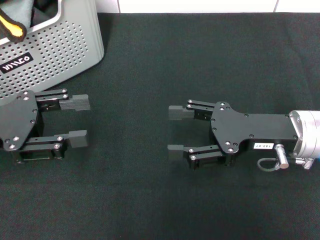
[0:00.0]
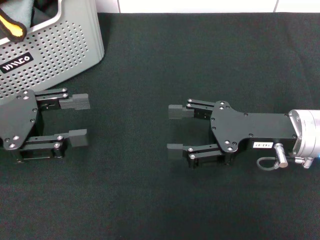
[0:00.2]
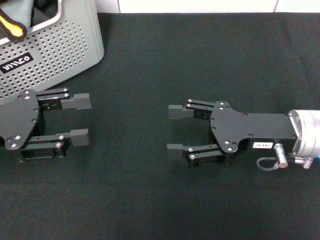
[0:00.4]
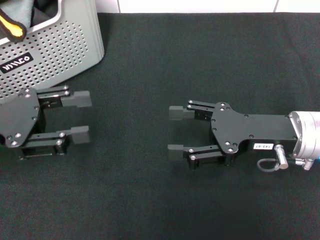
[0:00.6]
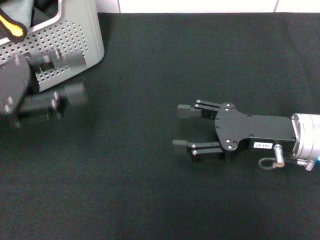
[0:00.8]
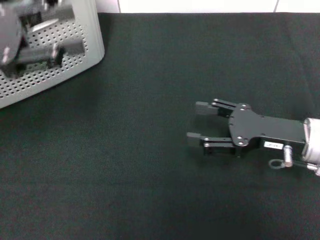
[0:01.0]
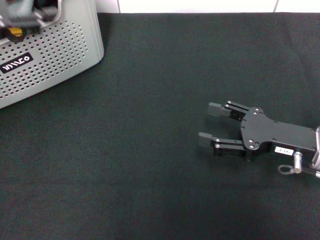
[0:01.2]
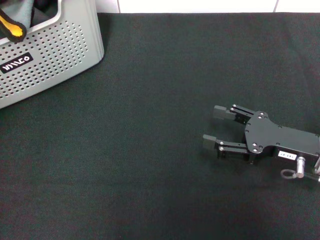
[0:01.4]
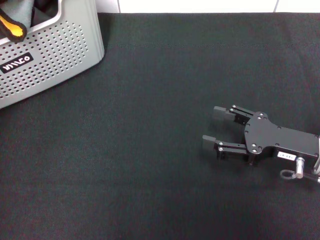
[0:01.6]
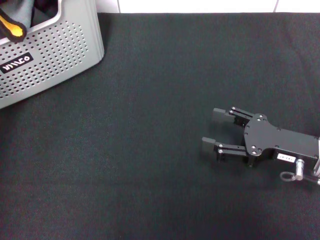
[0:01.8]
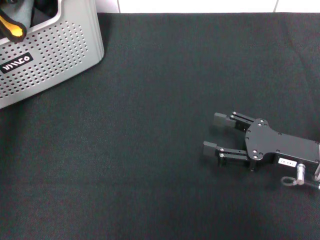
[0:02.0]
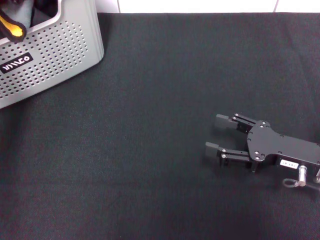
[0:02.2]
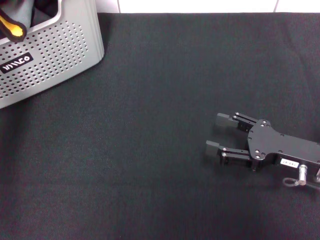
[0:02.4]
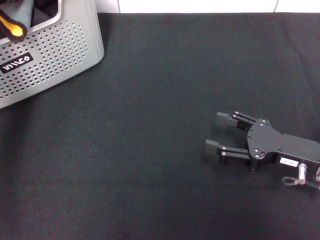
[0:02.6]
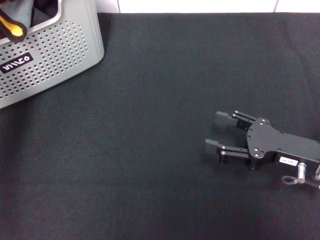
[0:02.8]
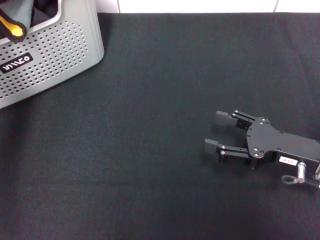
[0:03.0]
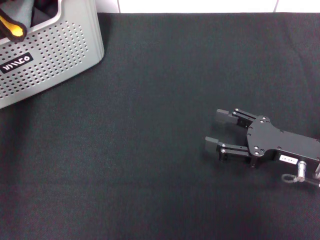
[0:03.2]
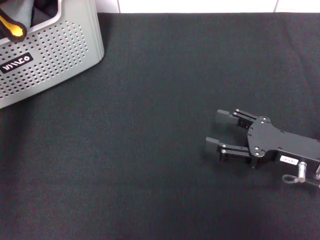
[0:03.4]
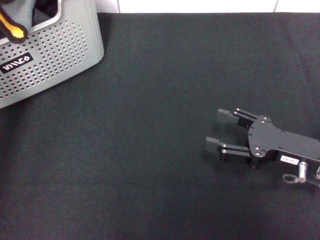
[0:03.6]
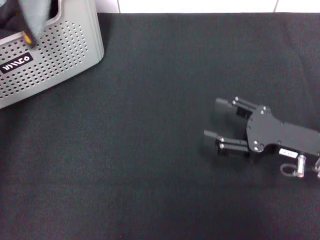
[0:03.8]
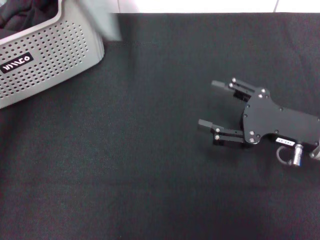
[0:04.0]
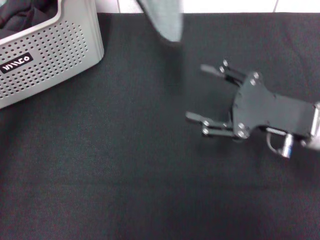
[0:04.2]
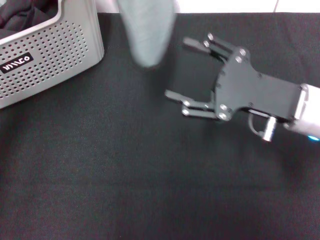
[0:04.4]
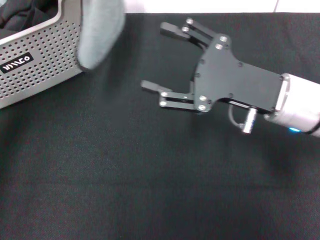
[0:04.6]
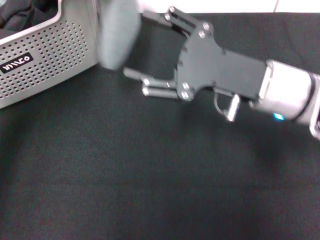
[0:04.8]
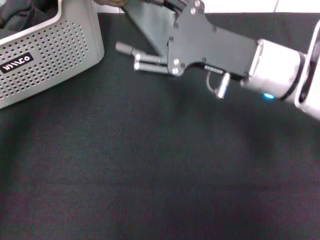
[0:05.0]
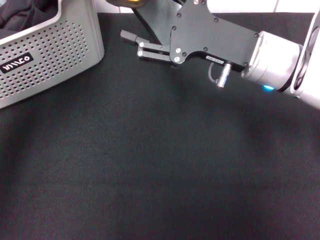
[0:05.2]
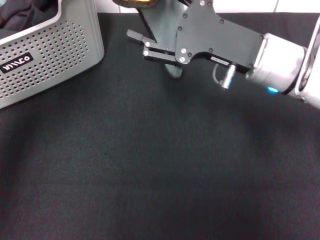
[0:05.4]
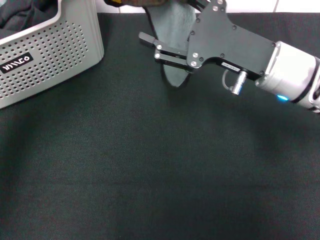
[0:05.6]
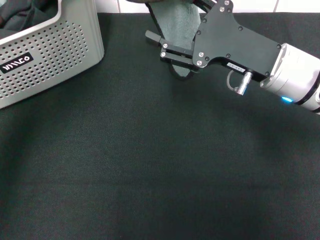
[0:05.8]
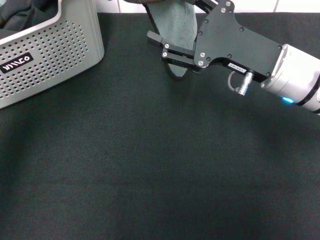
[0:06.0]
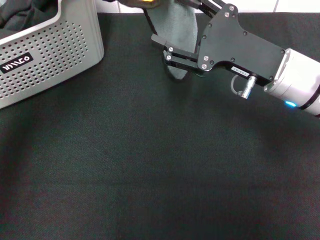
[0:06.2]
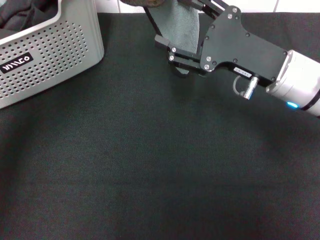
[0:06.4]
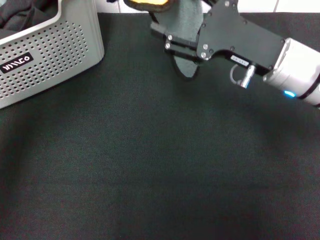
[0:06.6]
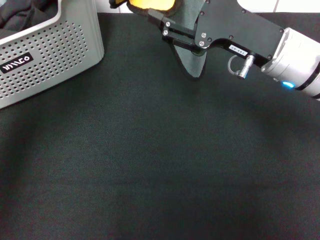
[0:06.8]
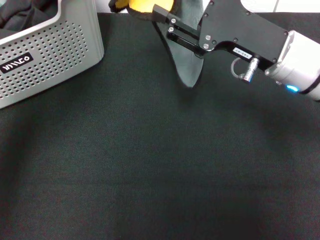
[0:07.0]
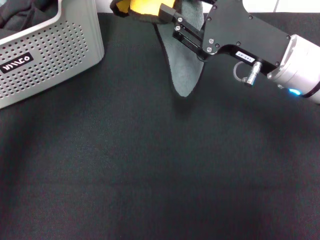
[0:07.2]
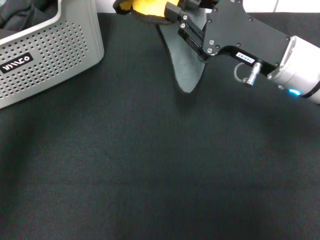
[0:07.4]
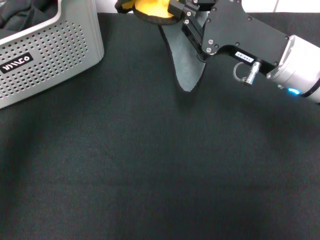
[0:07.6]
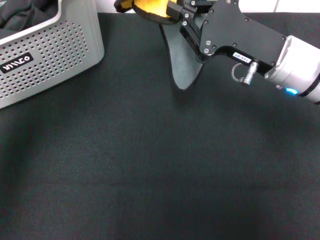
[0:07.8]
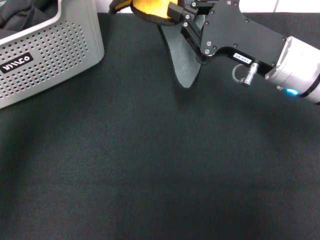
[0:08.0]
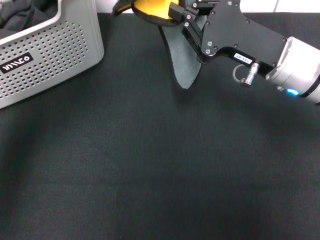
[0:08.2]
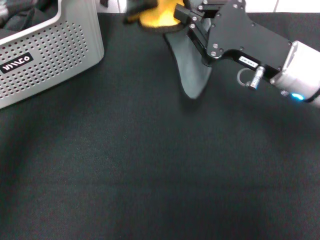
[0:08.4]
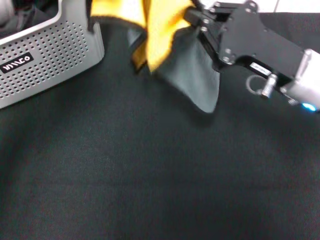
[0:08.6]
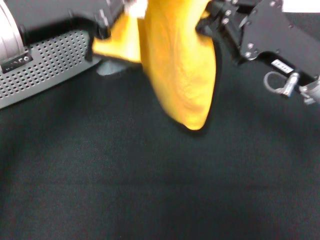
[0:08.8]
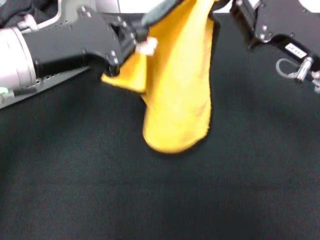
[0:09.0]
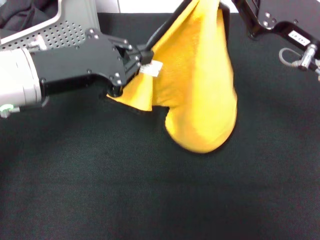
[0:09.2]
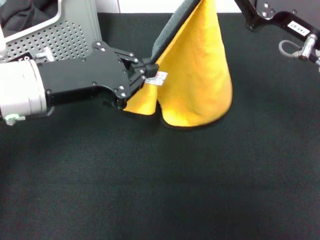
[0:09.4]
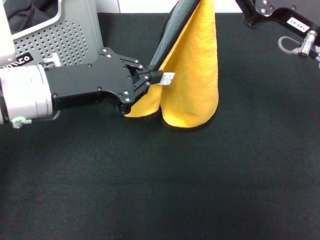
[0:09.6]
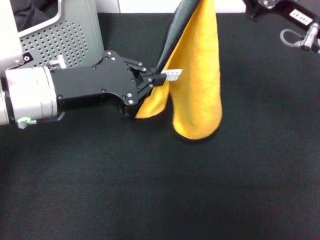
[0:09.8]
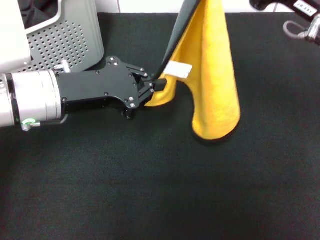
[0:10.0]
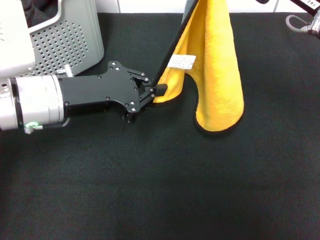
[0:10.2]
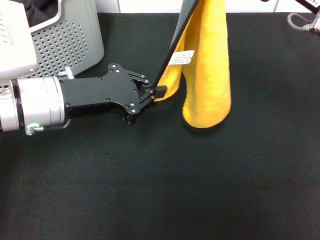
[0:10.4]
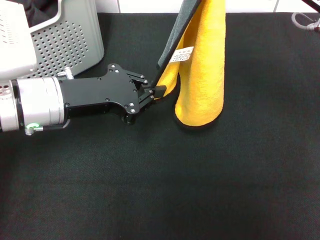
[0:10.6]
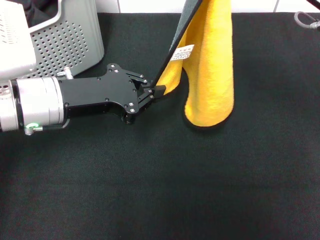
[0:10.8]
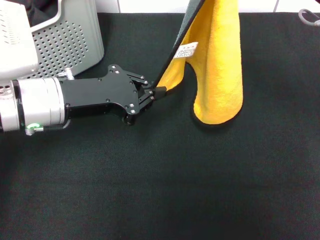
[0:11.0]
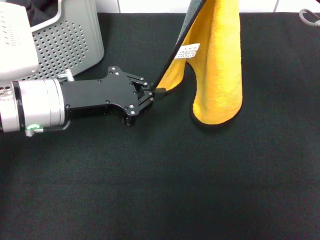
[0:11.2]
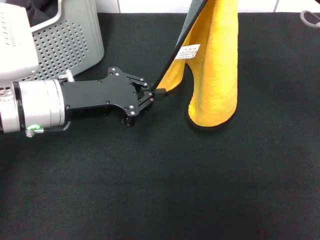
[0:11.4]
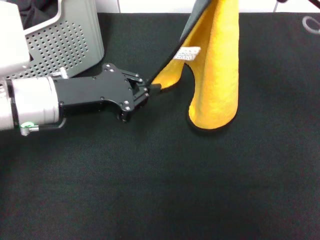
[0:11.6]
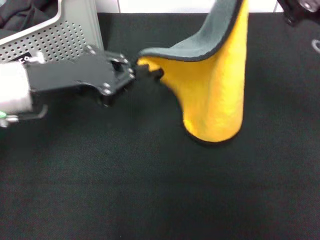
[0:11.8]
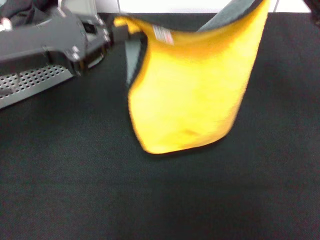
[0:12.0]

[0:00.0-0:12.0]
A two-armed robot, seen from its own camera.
Task of the whole recording: pick up the towel from the storage box and lay it flat on the black tablecloth.
Step, 0:00.0 to 0:03.2: Pick up a towel with the left gripper.
Step, 0:03.4 to 0:07.6: Spread the towel flat with the left gripper.
0:00.0 to 0:01.6: The right gripper shifts by roughly 5 cm. The left gripper heads upward and forward, covering some 15 cm.
0:01.6 to 0:03.0: The left gripper shifts about 10 cm forward and downward.
0:03.0 to 0:04.4: The left gripper shifts some 15 cm upward and backward, and closes; the right gripper shifts some 10 cm upward and to the left.
0:04.4 to 0:06.0: The left gripper moves some 5 cm.
0:06.0 to 0:07.6: The right gripper closes up.
0:07.6 to 0:09.0: The right gripper shifts by approximately 5 cm; the left gripper moves downward, some 10 cm.
0:09.0 to 0:10.4: The right gripper moves roughly 5 cm. Meanwhile the left gripper travels downward by approximately 5 cm.
0:10.4 to 0:12.0: The left gripper is displaced upward and to the left by some 10 cm. Meanwhile the right gripper moves to the right, some 5 cm.

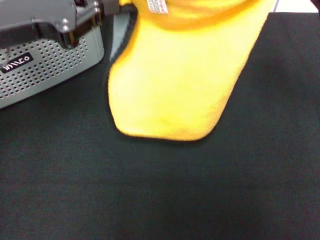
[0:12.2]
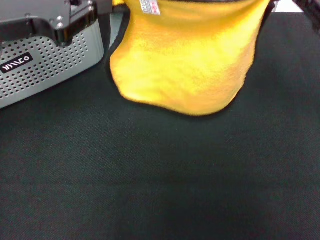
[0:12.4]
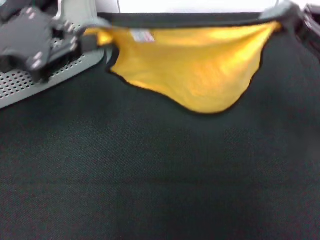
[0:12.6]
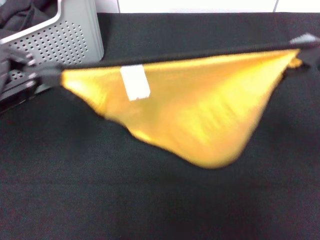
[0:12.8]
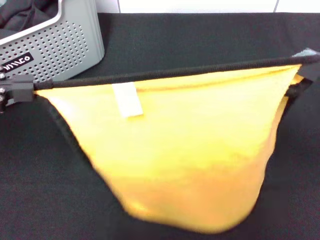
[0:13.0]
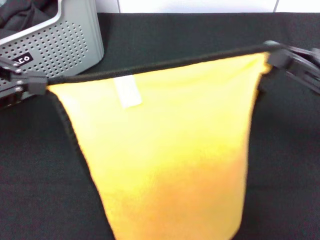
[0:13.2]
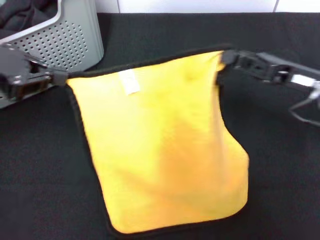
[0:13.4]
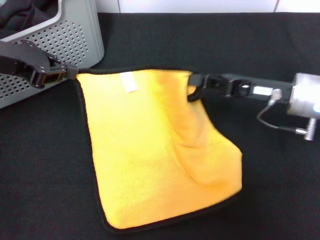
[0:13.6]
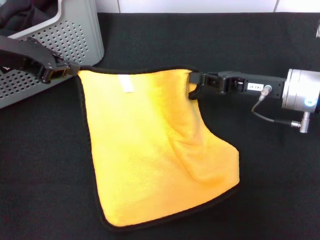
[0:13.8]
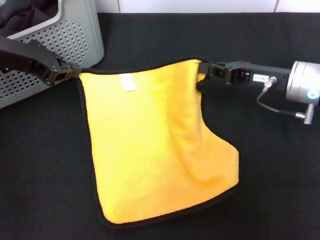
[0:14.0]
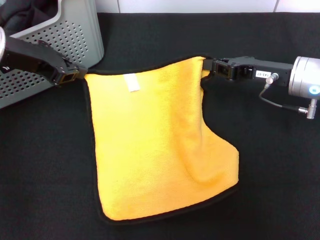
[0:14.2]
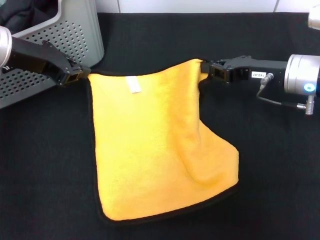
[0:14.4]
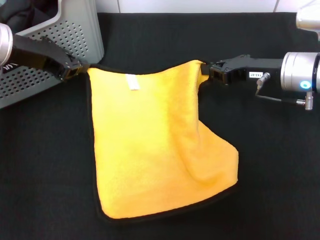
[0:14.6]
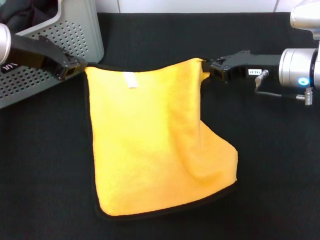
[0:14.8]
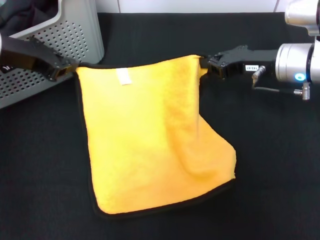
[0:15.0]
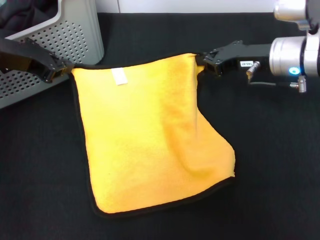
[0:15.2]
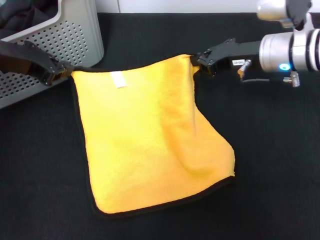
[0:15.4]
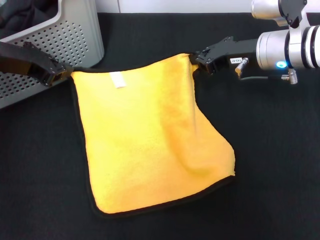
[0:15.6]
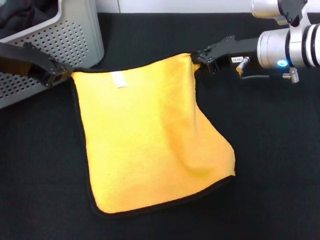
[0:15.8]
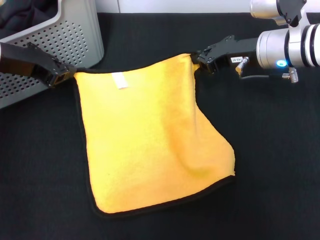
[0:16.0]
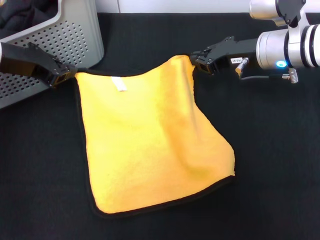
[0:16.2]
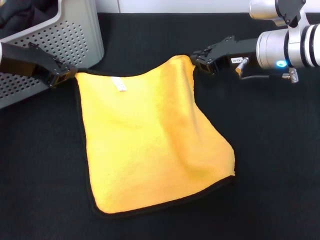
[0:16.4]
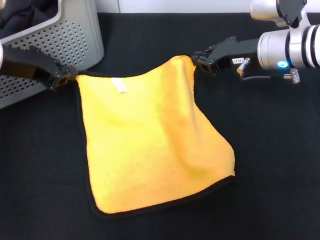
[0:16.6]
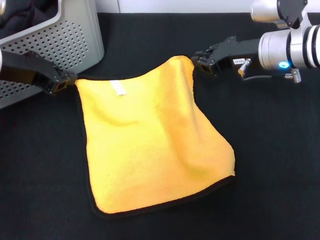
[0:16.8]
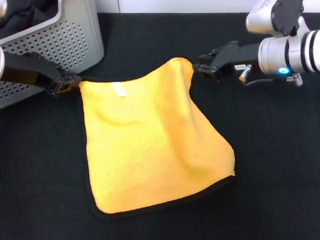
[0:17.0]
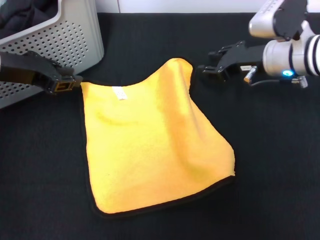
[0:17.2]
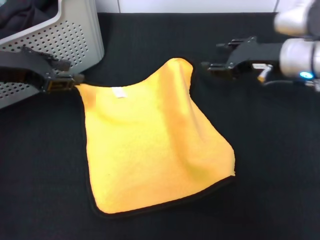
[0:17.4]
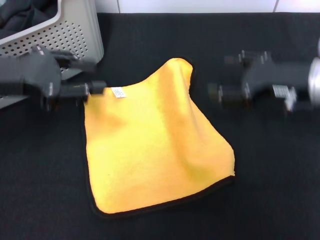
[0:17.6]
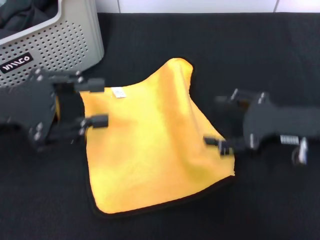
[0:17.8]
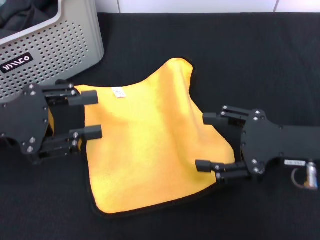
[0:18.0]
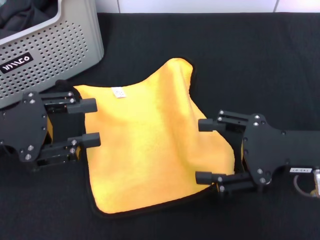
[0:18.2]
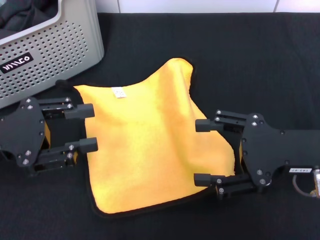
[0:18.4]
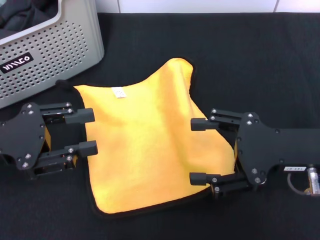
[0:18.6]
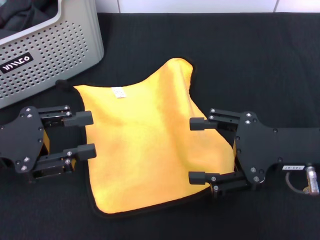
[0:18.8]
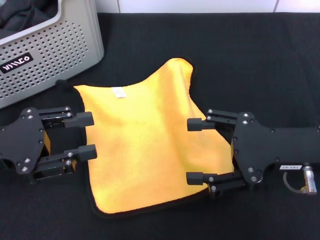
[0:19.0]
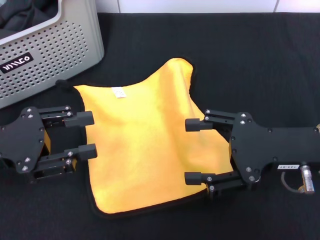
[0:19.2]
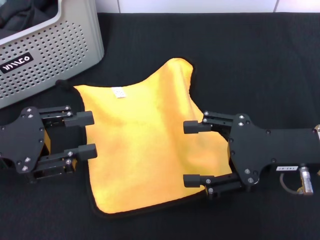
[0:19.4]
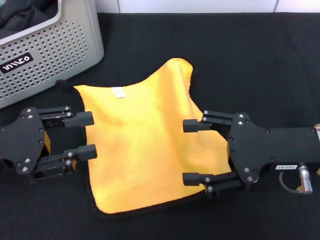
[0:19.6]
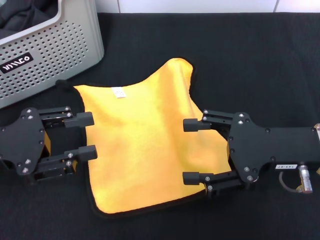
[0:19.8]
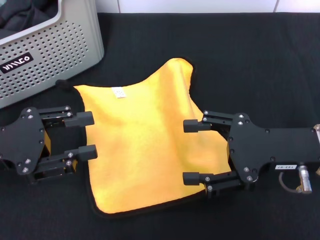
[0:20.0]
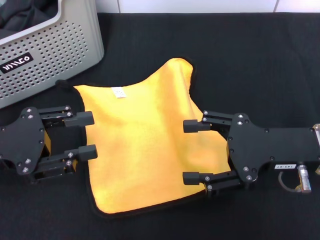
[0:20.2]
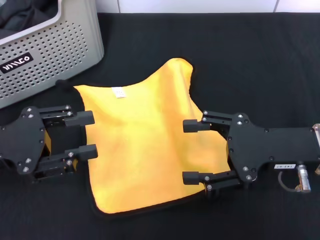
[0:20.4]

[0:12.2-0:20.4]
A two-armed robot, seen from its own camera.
Task of the whole recording: pick up the towel from the storage box and lay it flat on the black tablecloth.
Step, 0:12.2 to 0:17.4: Spread the towel flat with the right gripper.
0:12.2 to 0:13.8: The left gripper goes roughly 5 cm forward. The right gripper goes approximately 15 cm downward and to the left, and goes backward and returns, some 10 cm each way.
0:13.8 to 0:15.4: The right gripper travels forward by roughly 5 cm.
0:15.4 to 0:17.2: There are only small adjustments of the grippers.
0:17.2 to 0:18.8: The two grippers go roughly 15 cm backward. The right gripper opens; the left gripper opens up.
0:18.8 to 0:20.4: The two grippers keep their place.
